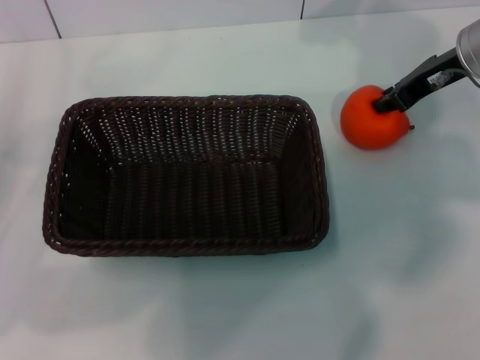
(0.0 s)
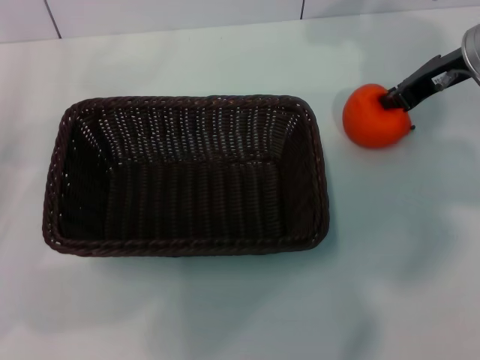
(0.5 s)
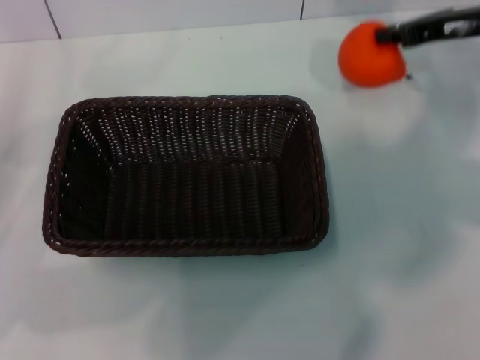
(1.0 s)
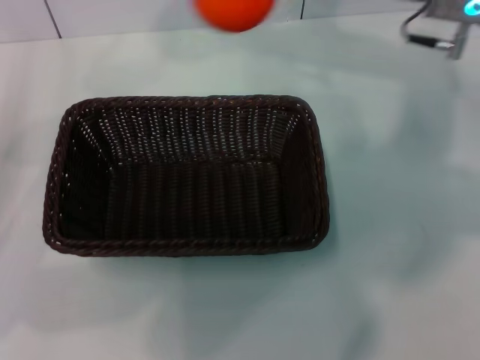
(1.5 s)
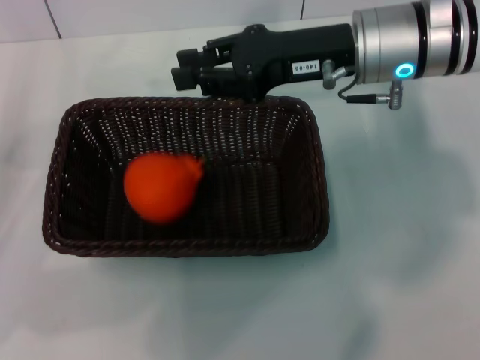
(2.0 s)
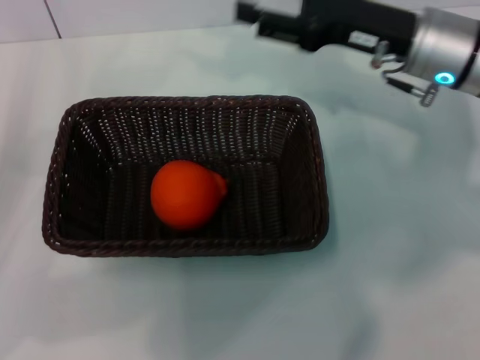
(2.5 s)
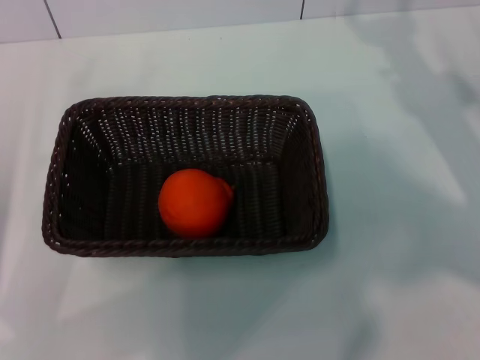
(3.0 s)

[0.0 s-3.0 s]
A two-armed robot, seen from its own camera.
Task of the whole recording: the left gripper pick up the black basket and place it horizontally in the middle of the table, the right gripper pick up the orange and place it into the black basket.
Step, 1.0 to 2.0 s: Place the orange into the dark basket with the right gripper.
0.0 to 1.5 s: The right gripper goes roughly 5 cm to the left.
1.5 to 3.0 s: The right gripper heads downward, to the right and backward, covering roughly 15 cm, and opens; the left gripper shifts by about 5 cm.
